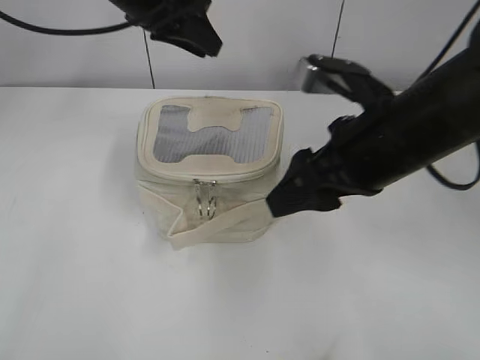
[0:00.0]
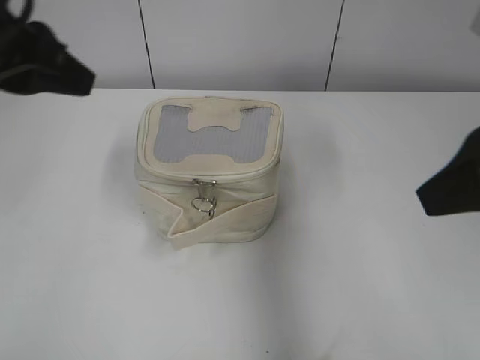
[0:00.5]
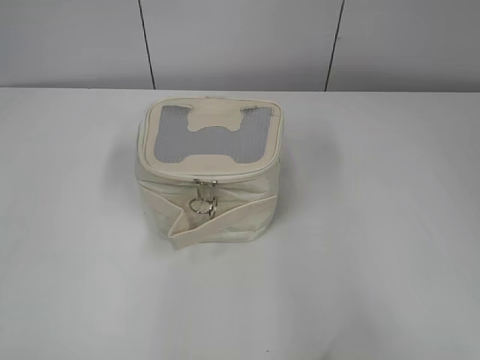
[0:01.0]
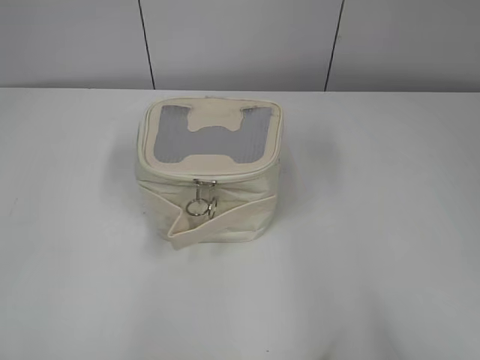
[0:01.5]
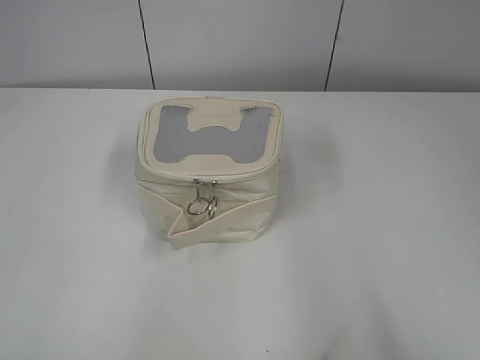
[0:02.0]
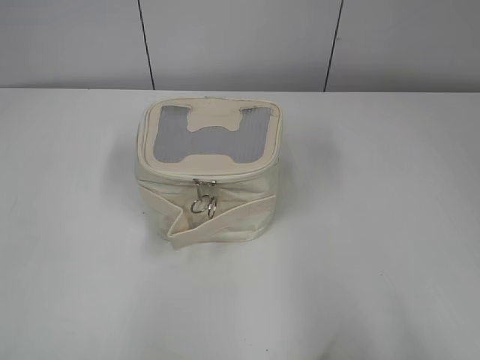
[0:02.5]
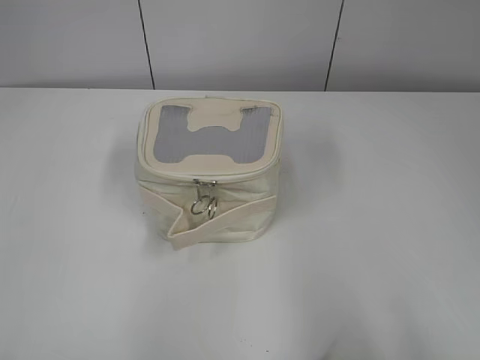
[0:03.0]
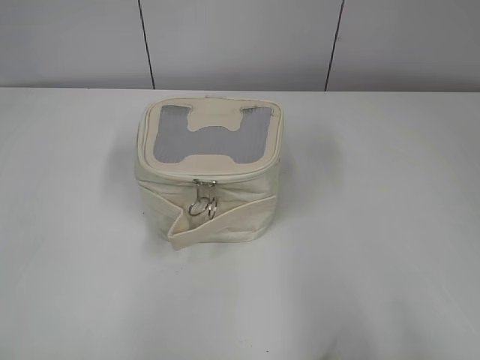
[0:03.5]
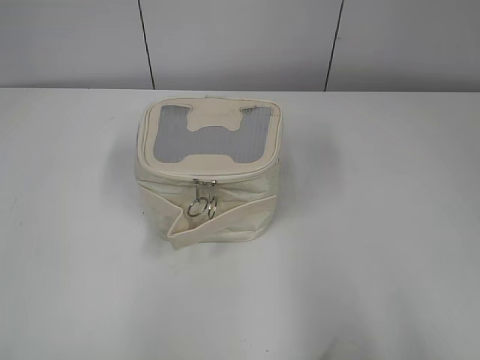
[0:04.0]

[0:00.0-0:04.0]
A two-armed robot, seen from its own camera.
0:00.0 to 0:02.0: The left gripper shifts about 50 cm backward and to the left, while the right gripper heads backward and to the right, covering about 30 cm.
